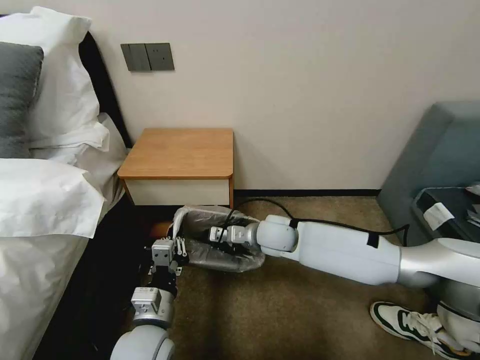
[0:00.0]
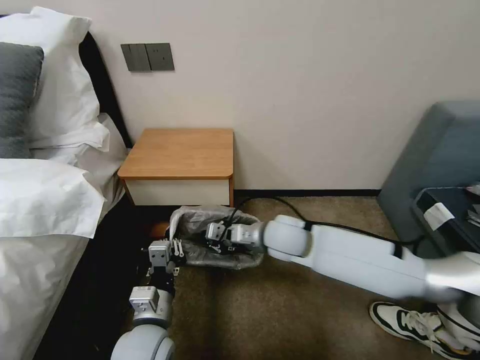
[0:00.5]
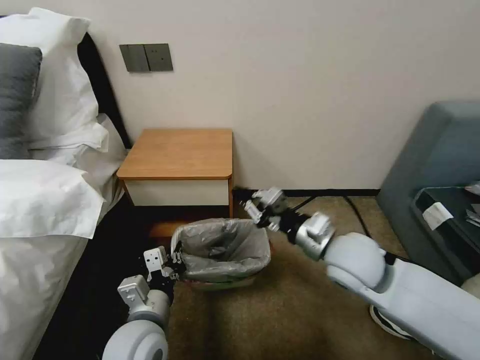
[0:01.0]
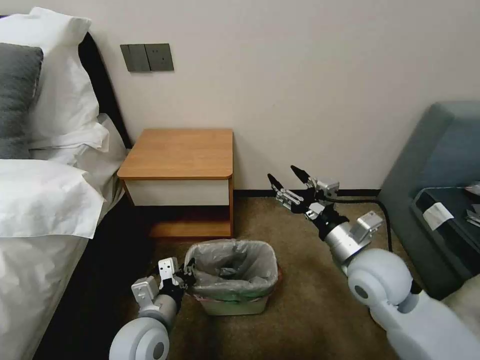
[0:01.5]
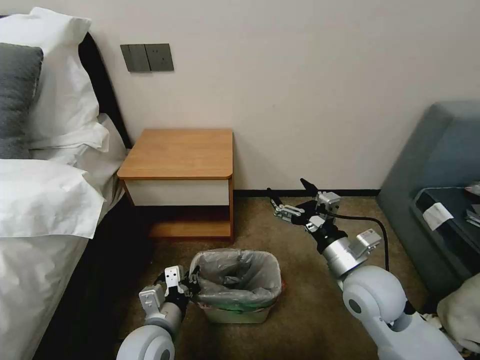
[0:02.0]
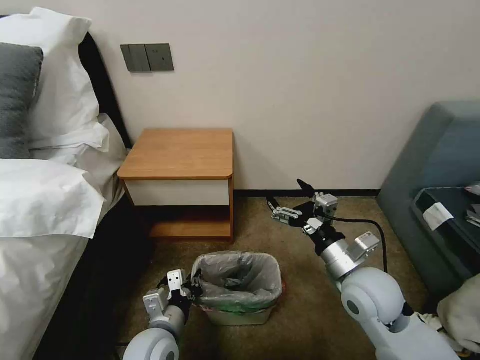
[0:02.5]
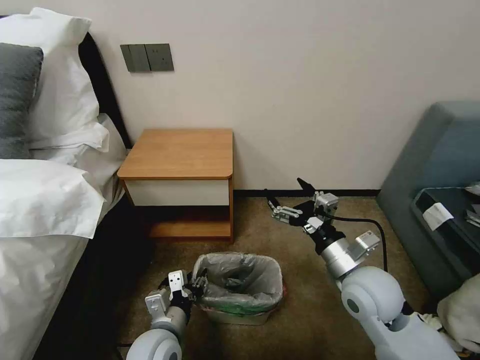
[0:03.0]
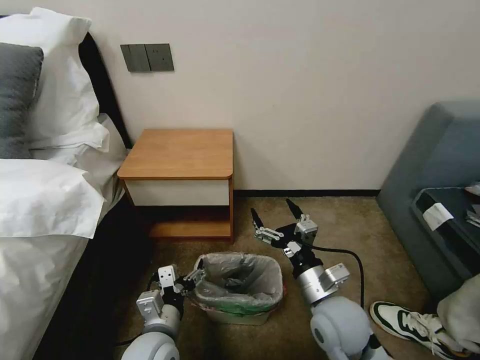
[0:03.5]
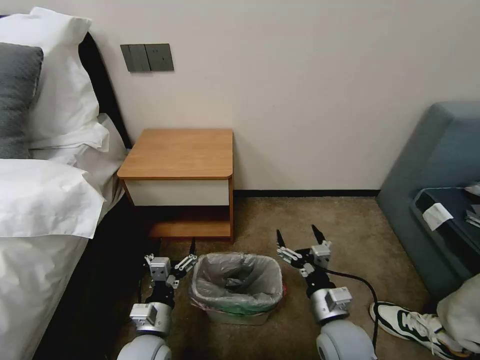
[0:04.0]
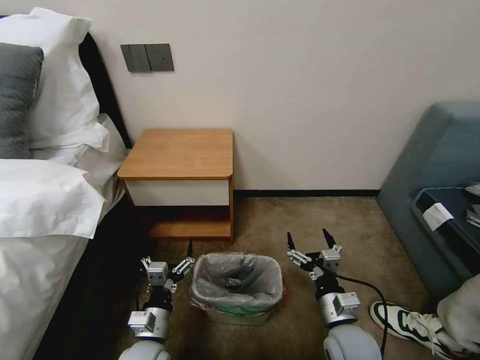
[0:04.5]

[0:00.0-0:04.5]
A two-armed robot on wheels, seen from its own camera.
Task of the whole recording: Pick up the garbage bag from the table and place it over the trash can.
0:00.0 to 0:02.0: The right gripper heads backward and to the right, covering about 20 cm, and opens its fingers.
0:02.0 to 0:04.5: The left gripper heads downward, covering roughly 5 cm, and opens its fingers. The right gripper moves downward and backward, roughly 15 cm.
